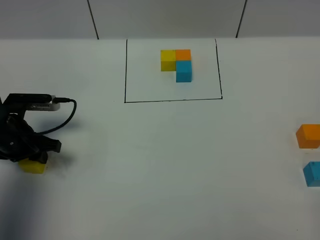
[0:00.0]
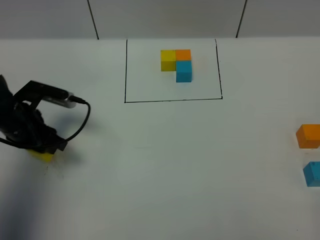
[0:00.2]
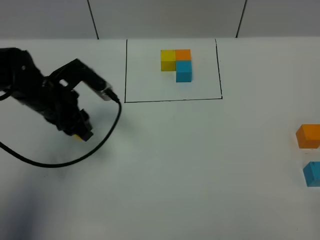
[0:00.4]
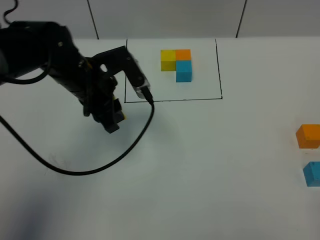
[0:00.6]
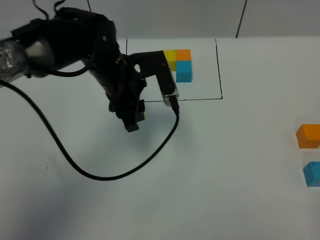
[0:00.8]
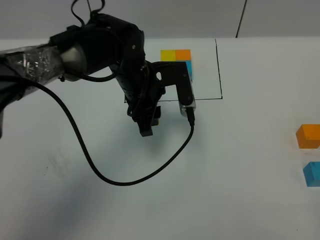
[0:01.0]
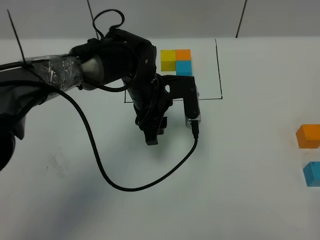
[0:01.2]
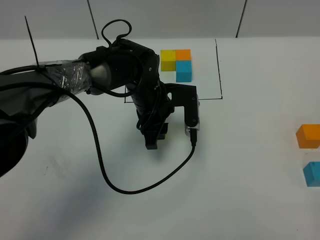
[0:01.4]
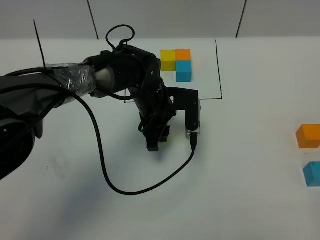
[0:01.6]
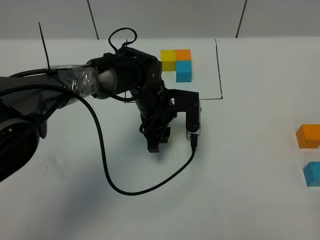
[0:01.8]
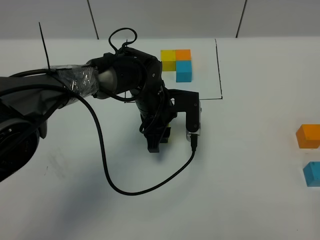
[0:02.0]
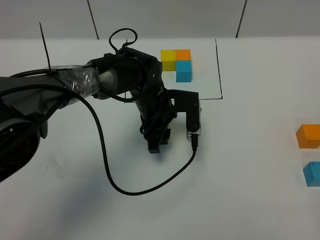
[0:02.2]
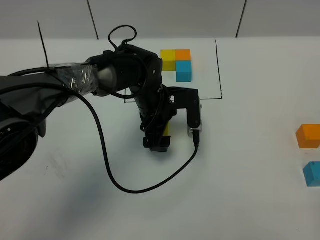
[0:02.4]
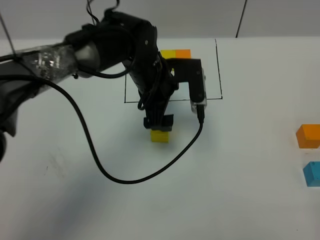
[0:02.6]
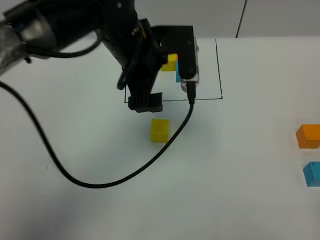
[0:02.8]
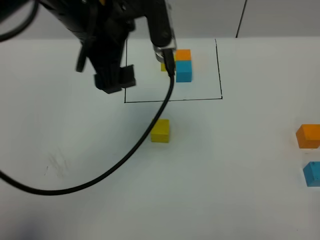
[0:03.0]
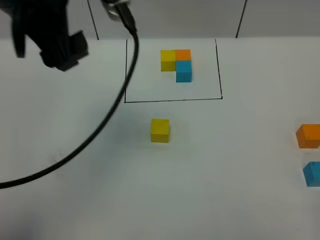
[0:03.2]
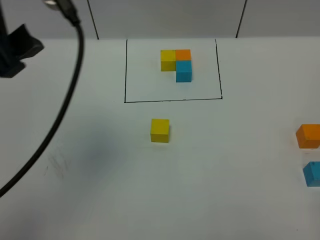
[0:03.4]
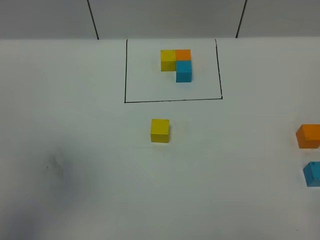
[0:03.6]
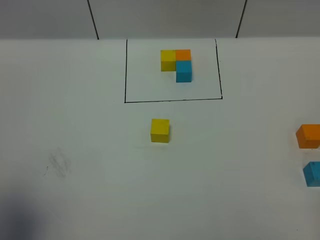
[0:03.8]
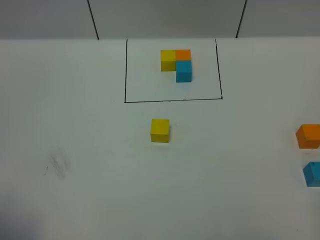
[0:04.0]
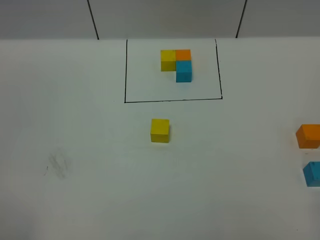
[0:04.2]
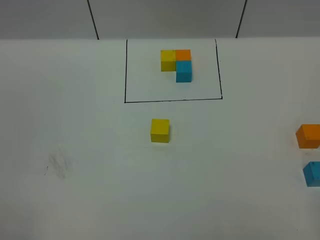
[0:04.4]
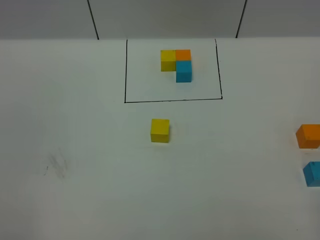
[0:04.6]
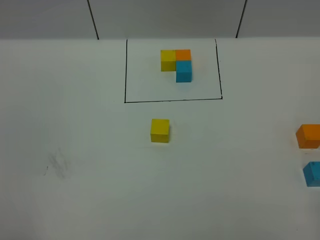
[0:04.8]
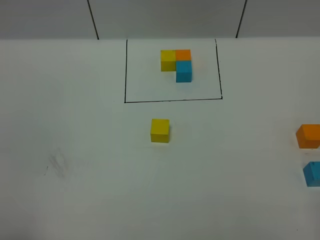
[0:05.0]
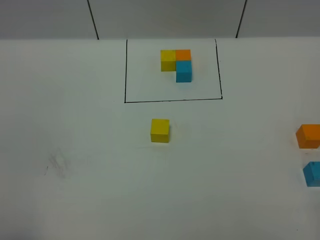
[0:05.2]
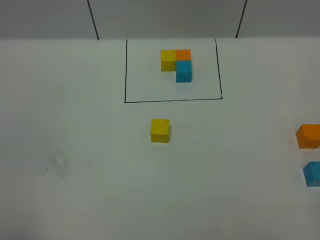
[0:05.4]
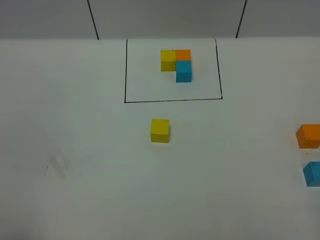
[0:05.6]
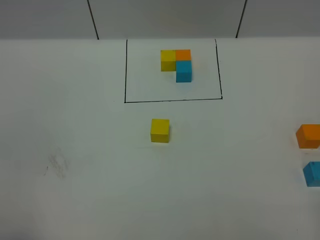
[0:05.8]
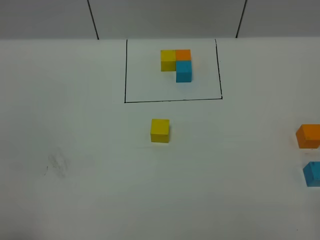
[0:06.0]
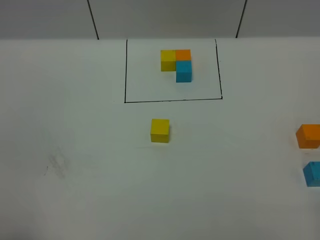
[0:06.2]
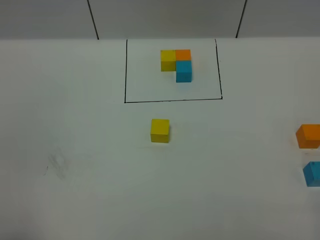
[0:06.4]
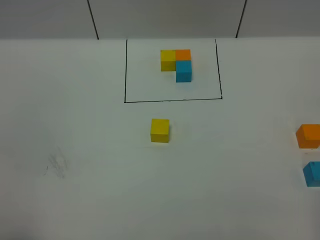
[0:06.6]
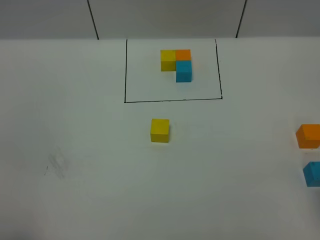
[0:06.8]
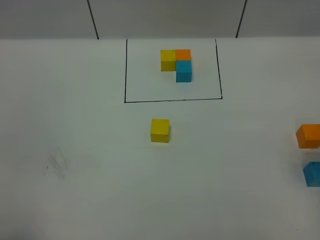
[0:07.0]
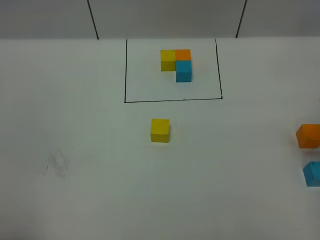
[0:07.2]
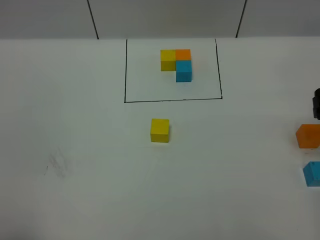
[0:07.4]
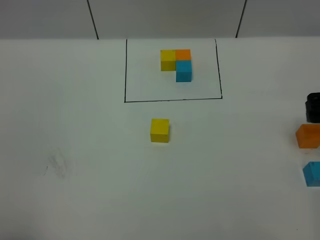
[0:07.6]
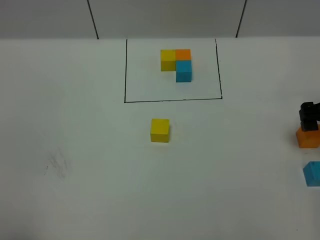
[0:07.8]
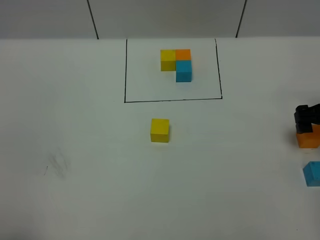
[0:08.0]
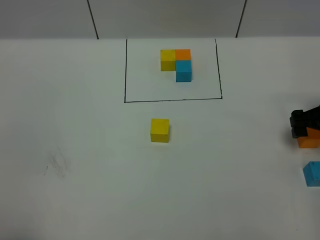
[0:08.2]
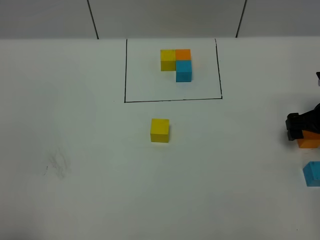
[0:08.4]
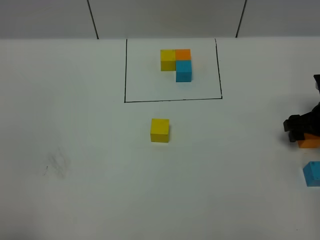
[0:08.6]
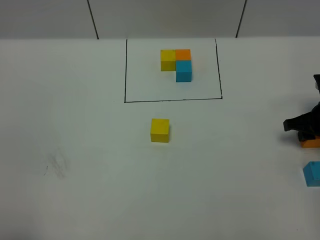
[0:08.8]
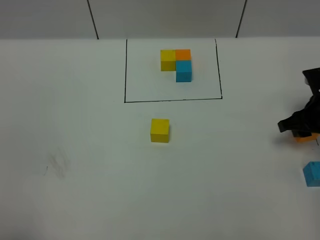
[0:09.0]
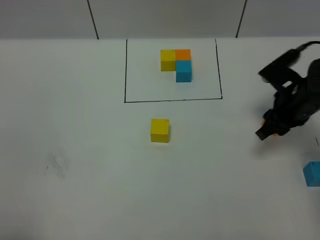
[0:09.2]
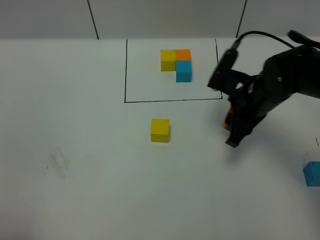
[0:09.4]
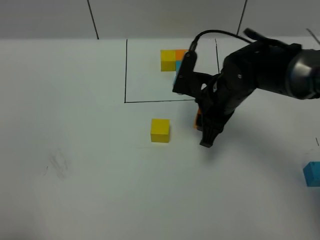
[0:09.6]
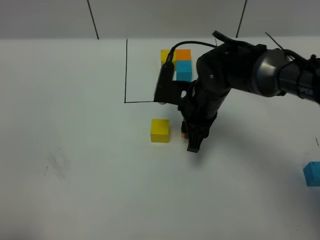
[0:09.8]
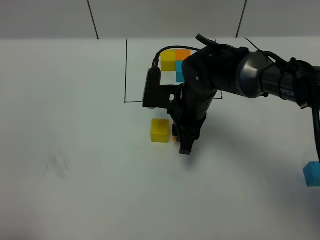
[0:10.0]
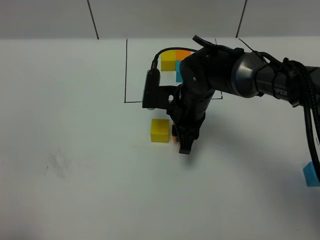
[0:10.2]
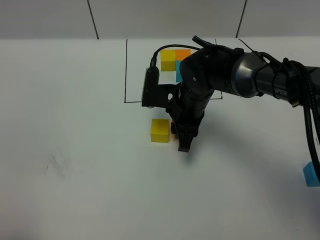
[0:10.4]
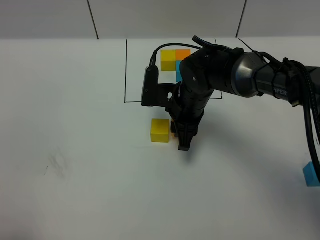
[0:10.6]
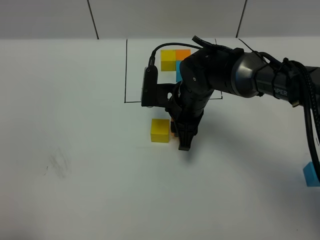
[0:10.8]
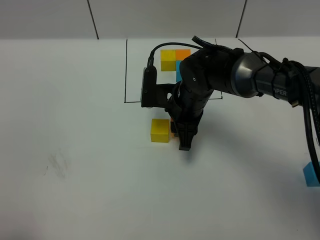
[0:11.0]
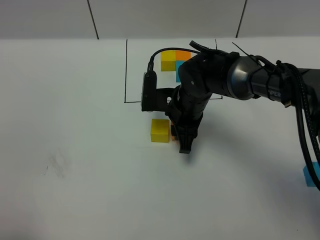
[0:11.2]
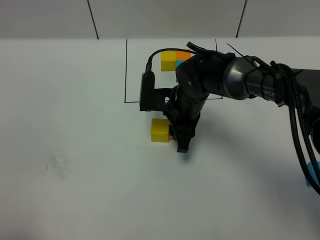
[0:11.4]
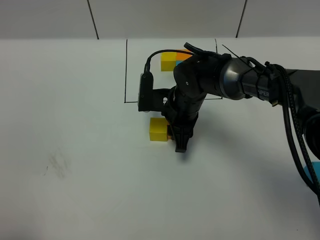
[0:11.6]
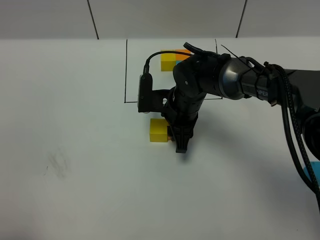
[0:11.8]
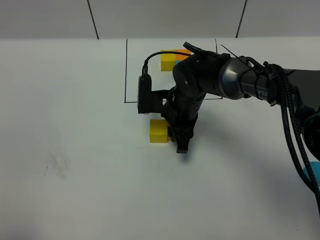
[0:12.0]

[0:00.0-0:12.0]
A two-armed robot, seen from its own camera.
Task of the whole recording: According to the building block template in front, assemble the scattered blocks together.
Step, 0:00.0 to 0:02.4: Put the yellow cube in the center of the table.
0:00.0 to 0:01.6: The left gripper shifts approximately 25 cm to the right.
0:01.6 to 0:03.0: The left gripper heads upward, covering approximately 25 cm, and opens its fingers.
0:03.0 to 0:04.4: The left gripper heads backward and to the left, covering approximately 40 cm.
0:06.0 to 0:07.6: The right gripper shifts approximately 30 cm forward, and opens up.
0:07.6 to 0:09.0: The right gripper is displaced downward by some 5 cm, and closes up.
0:09.0 to 0:10.4: The right gripper heads to the left, covering some 25 cm.
0:10.4 to 0:12.0: The grippers move only a little.

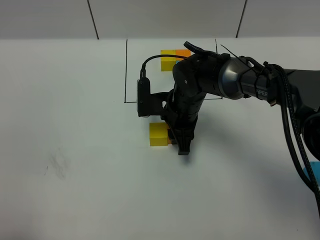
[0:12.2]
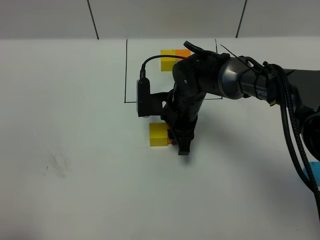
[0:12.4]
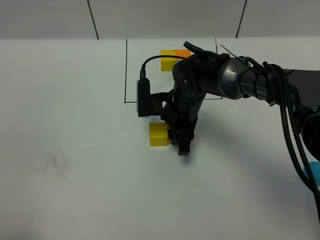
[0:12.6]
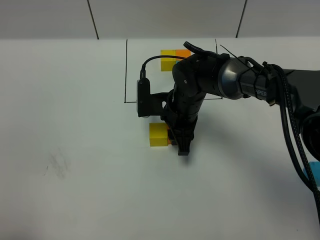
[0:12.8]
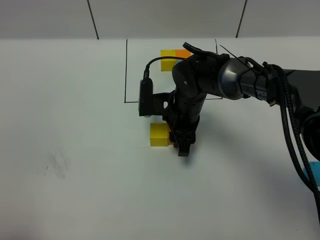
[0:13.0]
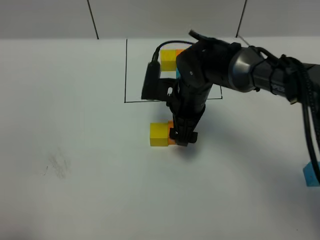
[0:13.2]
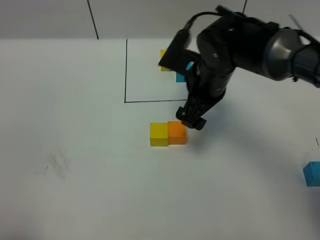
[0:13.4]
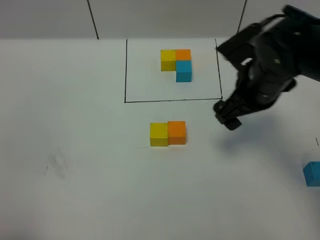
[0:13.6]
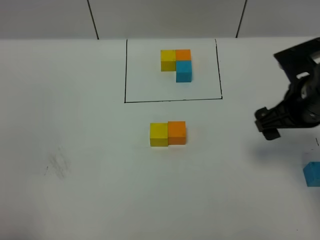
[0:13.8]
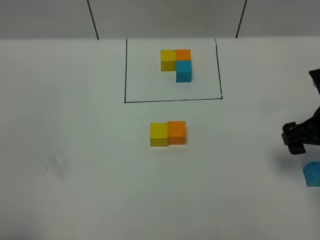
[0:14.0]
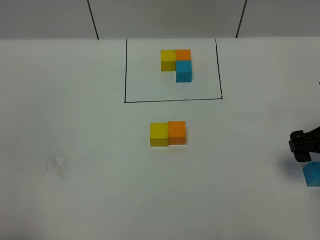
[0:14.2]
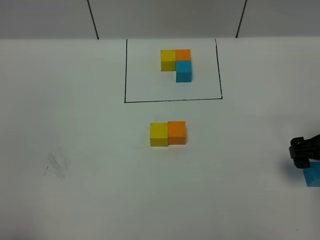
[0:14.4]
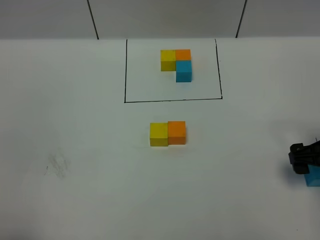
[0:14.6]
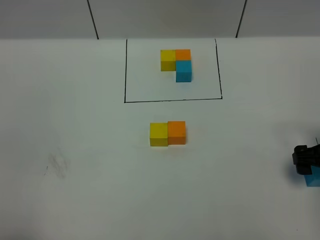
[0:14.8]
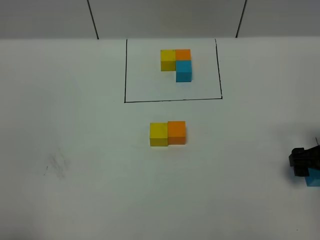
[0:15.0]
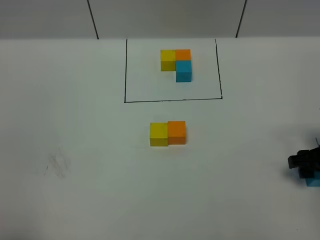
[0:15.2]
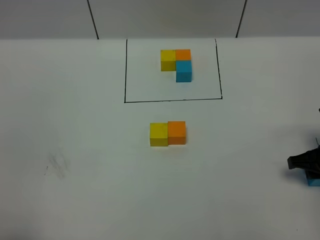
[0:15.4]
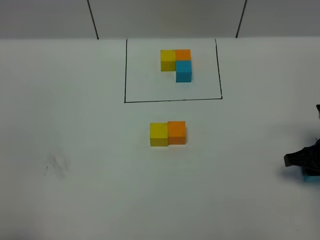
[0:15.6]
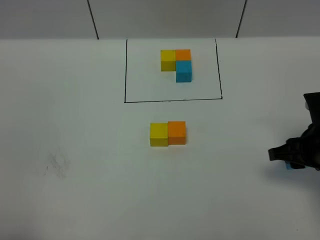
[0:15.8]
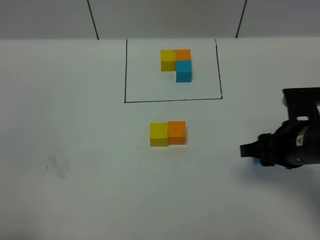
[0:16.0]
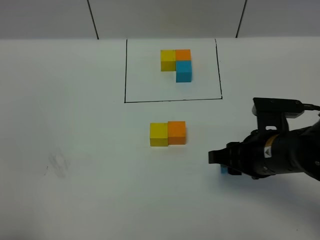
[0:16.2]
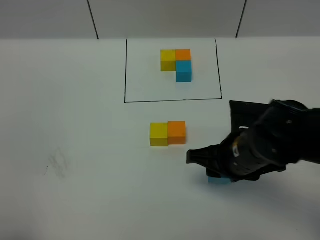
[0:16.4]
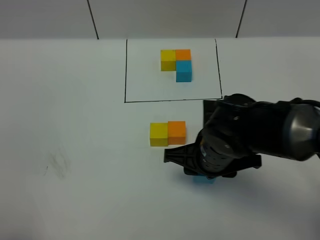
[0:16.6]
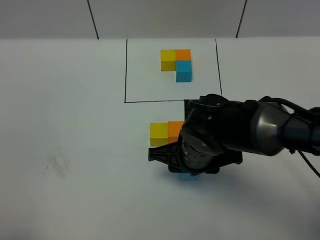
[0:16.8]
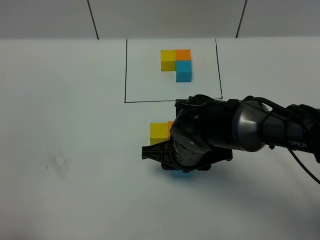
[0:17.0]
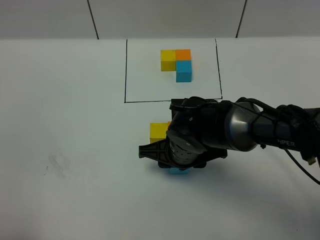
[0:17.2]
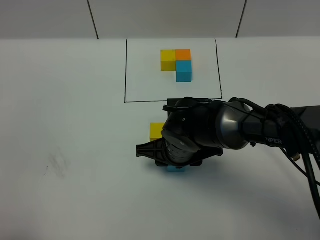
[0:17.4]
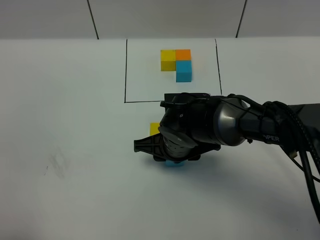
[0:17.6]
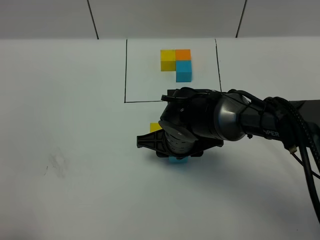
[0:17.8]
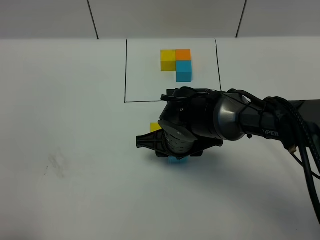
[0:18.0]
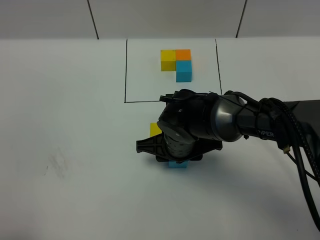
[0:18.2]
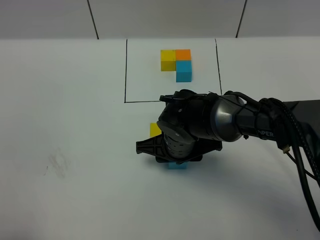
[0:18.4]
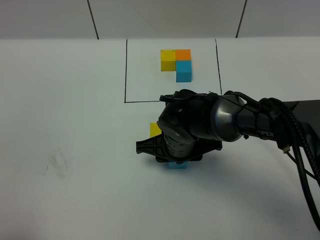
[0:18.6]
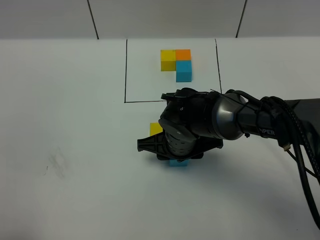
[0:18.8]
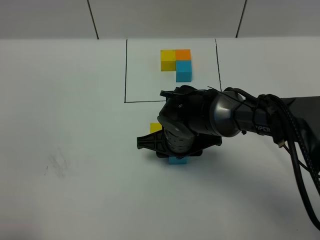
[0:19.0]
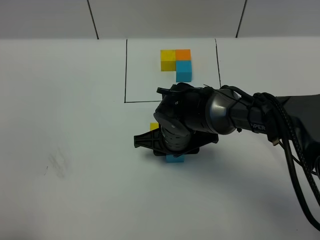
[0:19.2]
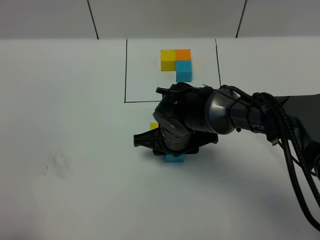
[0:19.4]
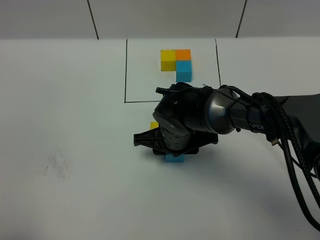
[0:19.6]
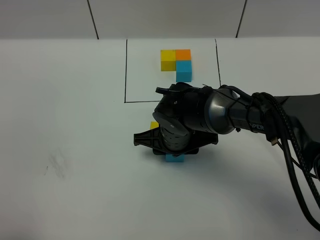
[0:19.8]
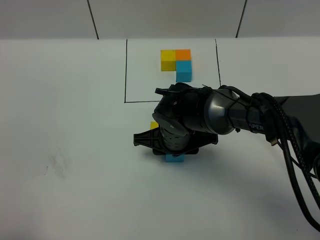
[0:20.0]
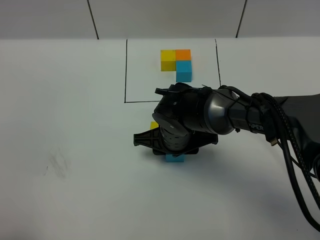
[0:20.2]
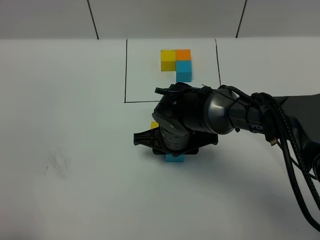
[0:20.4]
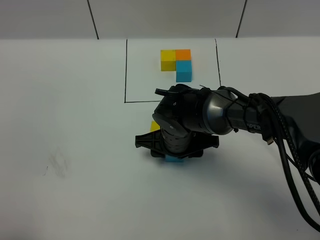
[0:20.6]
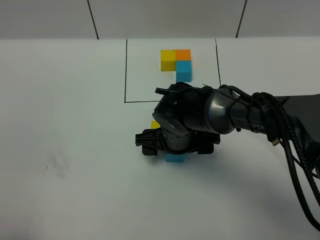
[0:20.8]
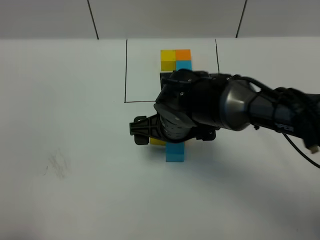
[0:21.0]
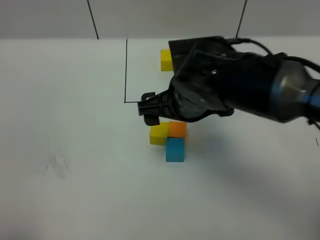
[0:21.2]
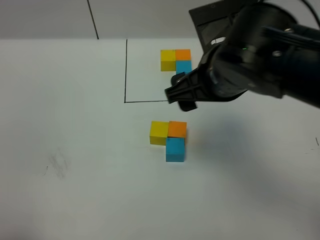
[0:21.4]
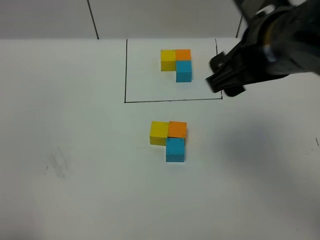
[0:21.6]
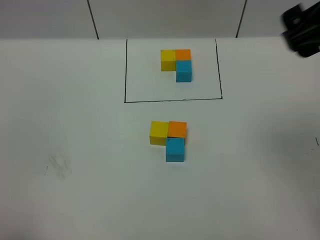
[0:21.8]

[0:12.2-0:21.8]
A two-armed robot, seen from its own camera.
Task of the whole recording: According to the building block template in front, assemble the scattered blocks together.
Step, 0:13.4 to 0:20.8: Put the blue cube in the front of the orange cube.
0:12.2 to 0:13.8: The right gripper shifts about 25 cm to the right, upward and backward, and opens its fingers.
0:13.8 to 0:15.4: The right gripper is displaced downward and to the right by some 15 cm, and closes its fingers.
0:15.4 to 0:17.0: The right gripper travels to the left by about 25 cm.
0:17.0 to 0:20.2: The grippers make only small movements.
0:20.2 to 0:21.8: The right gripper moves upward and to the right, some 35 cm, and opens up.
